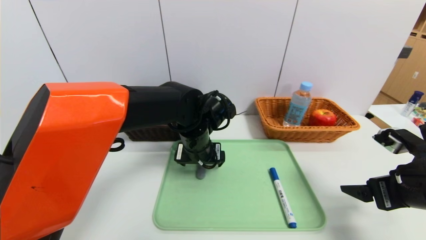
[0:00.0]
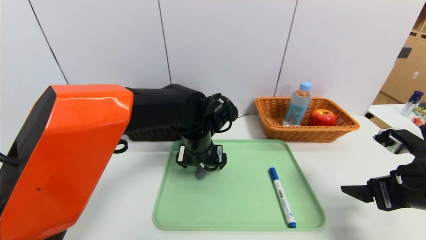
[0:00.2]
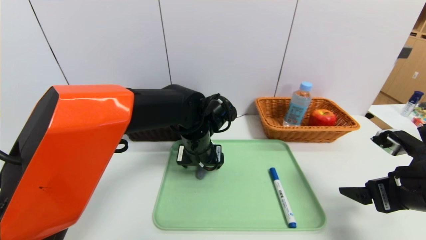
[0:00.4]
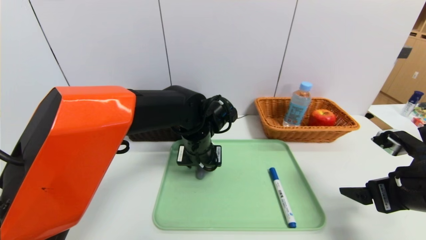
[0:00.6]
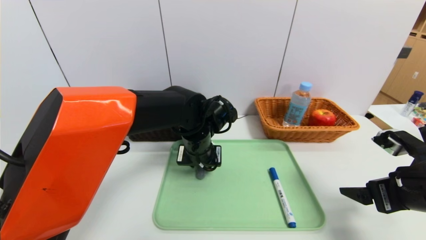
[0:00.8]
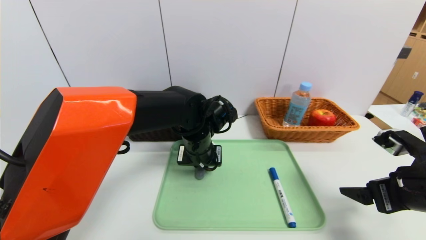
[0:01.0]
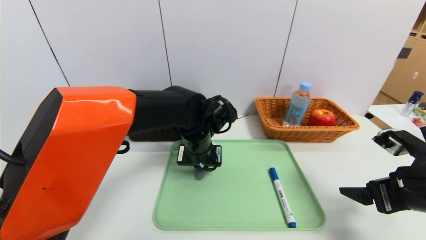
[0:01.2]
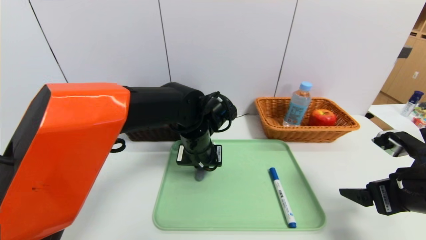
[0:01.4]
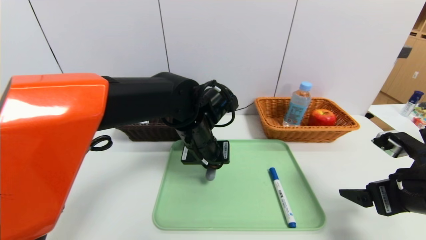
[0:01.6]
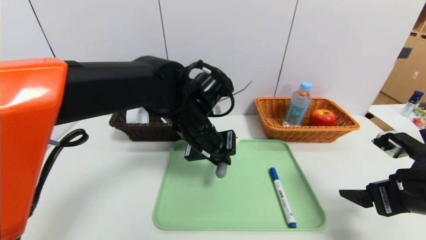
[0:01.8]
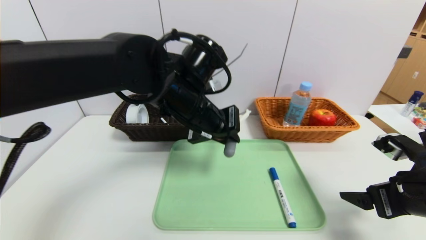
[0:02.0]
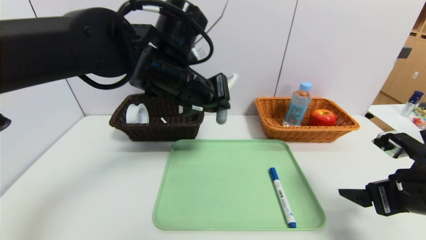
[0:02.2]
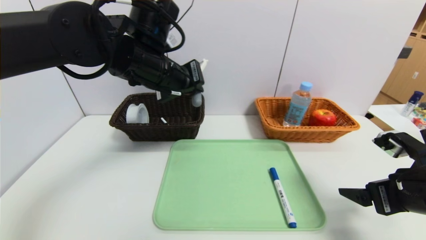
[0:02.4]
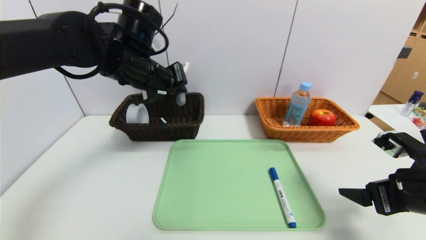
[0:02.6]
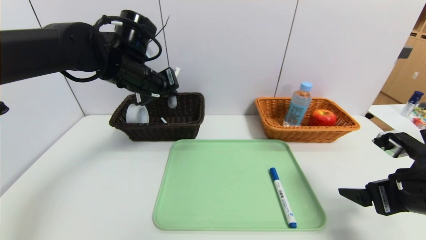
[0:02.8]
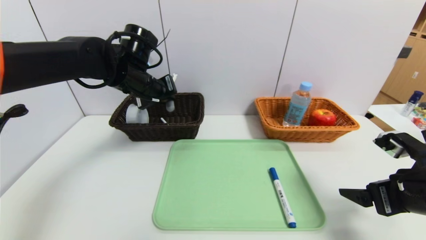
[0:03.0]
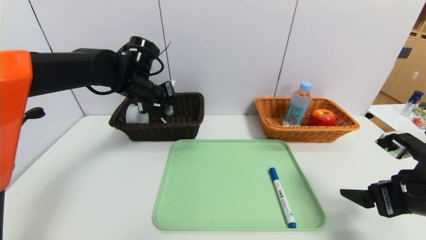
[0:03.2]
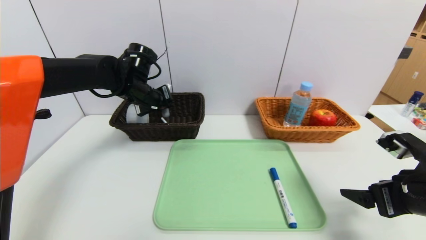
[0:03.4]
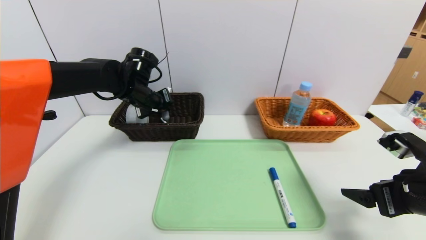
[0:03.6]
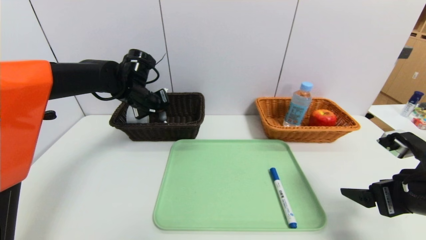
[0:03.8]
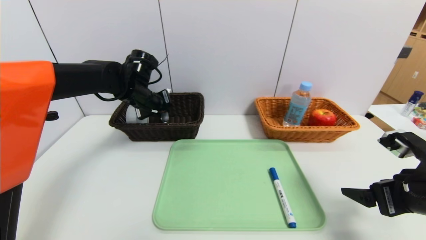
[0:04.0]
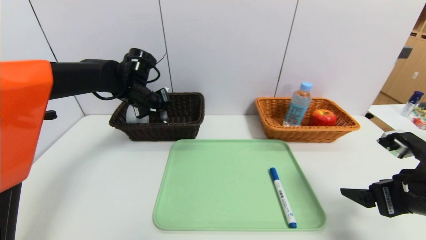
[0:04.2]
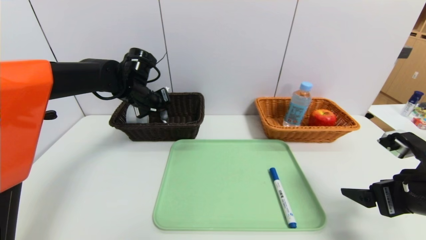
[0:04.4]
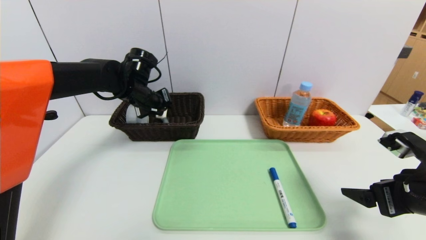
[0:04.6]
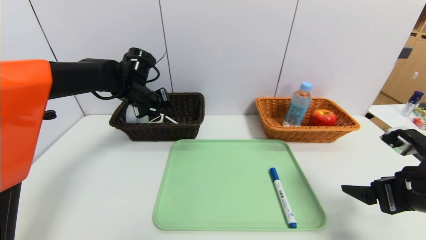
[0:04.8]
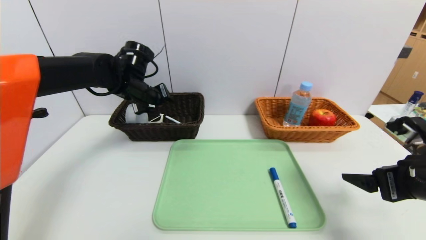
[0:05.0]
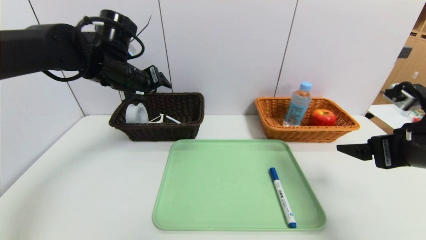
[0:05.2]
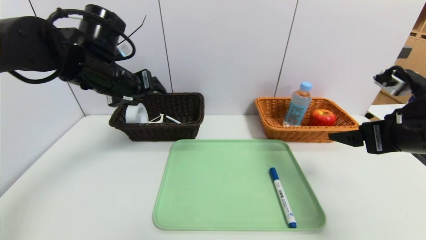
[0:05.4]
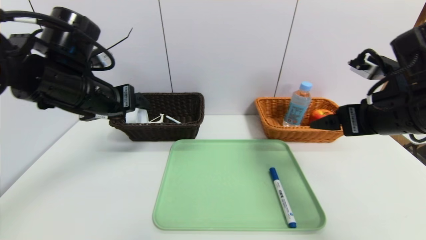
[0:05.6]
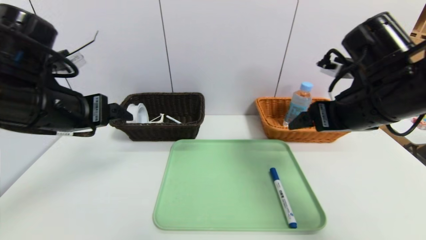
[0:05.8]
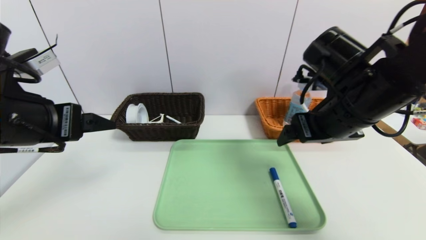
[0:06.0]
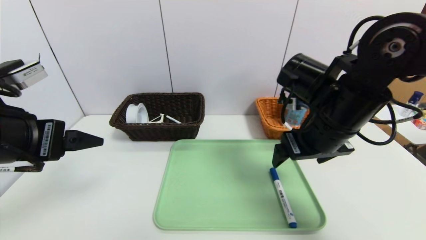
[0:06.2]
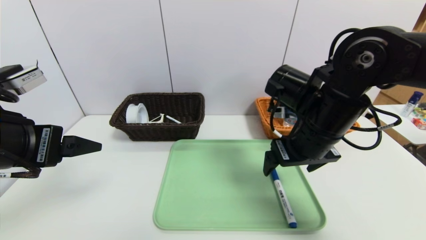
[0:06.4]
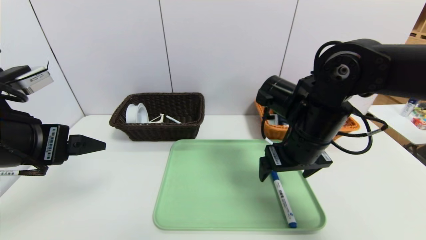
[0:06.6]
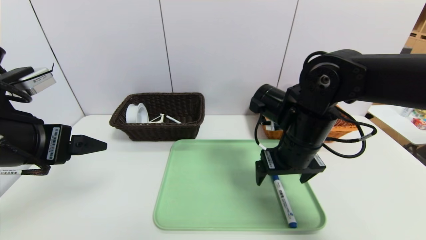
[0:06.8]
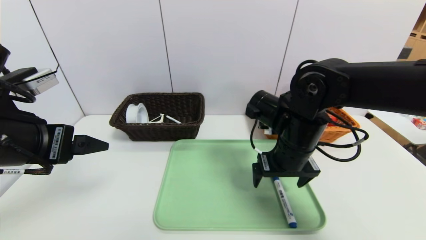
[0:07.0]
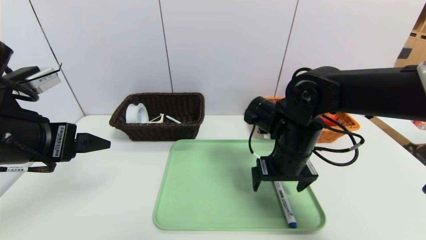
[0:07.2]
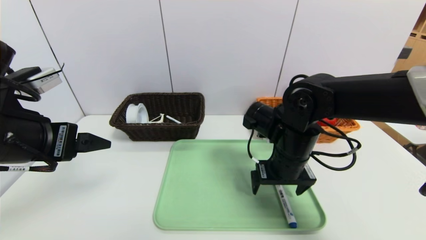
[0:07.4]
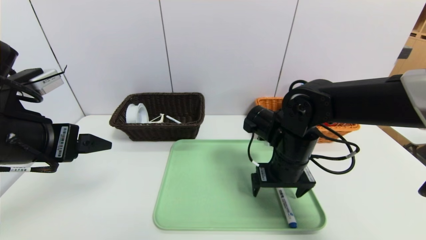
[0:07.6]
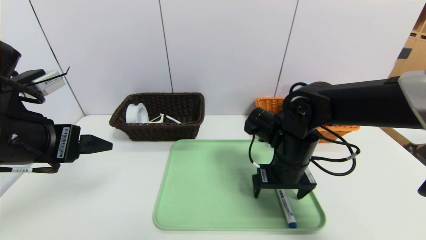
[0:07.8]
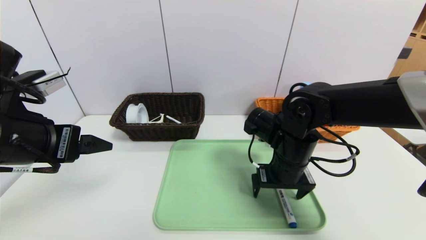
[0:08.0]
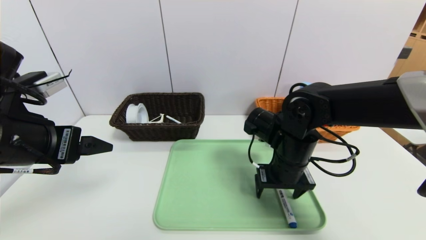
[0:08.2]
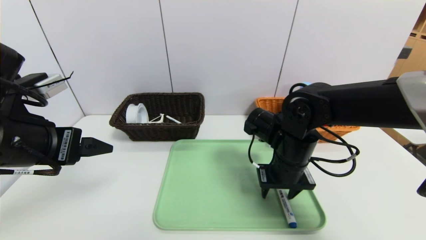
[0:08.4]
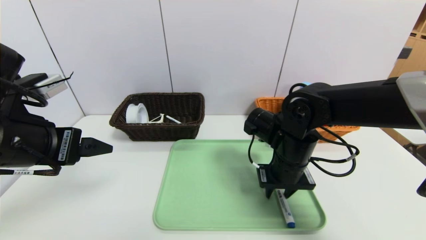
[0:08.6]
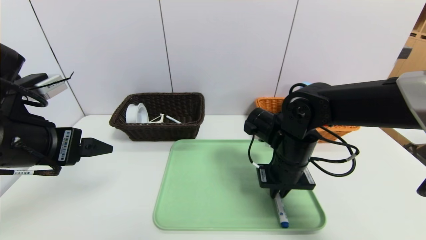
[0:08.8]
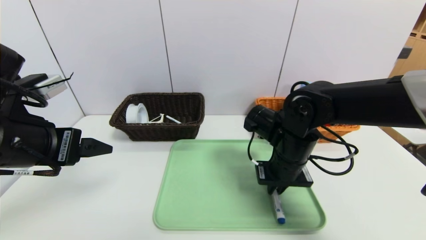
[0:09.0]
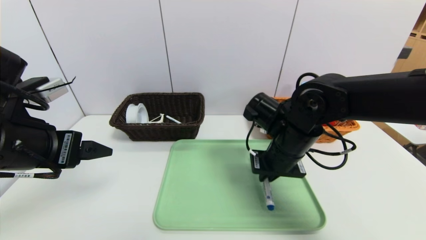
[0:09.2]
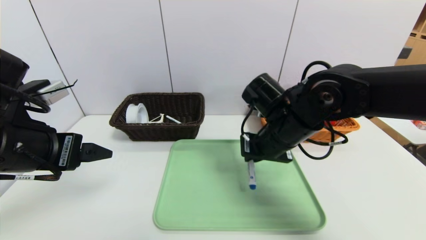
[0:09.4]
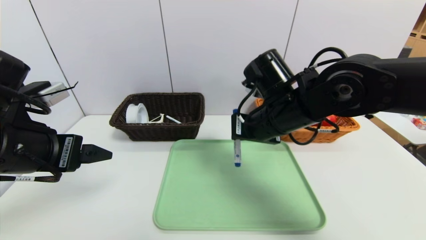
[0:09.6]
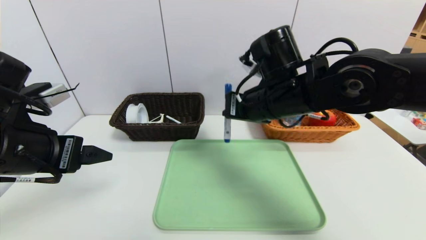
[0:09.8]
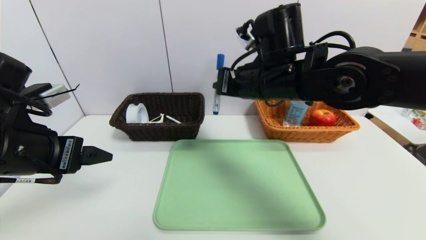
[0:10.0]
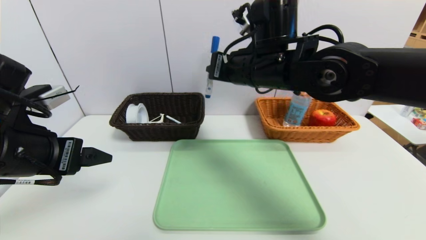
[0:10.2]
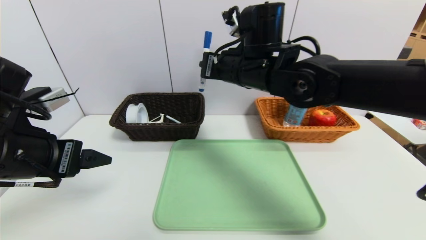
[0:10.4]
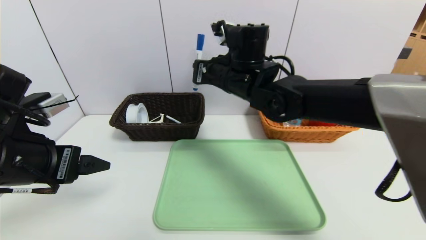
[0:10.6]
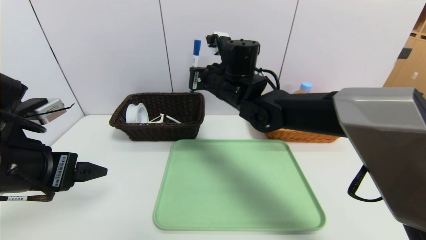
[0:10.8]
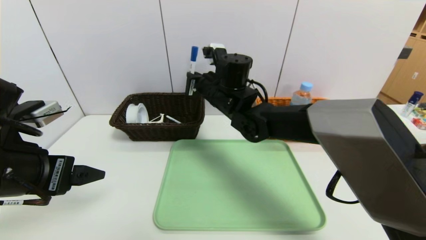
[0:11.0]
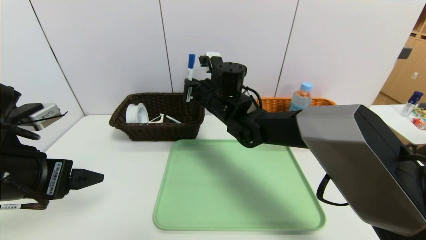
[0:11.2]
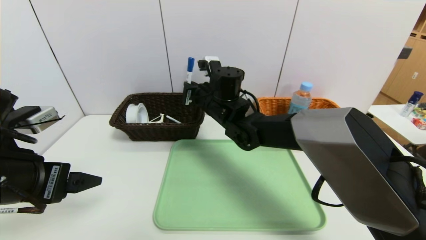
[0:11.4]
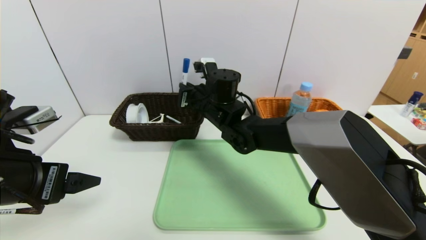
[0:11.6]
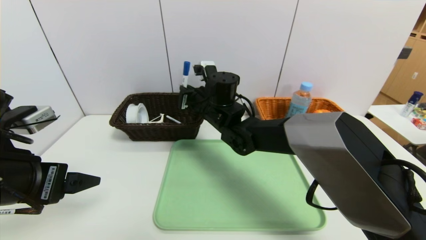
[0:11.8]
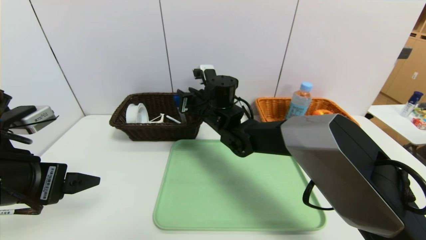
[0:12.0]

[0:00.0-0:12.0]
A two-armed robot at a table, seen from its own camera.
Task of the whole recording: place the food in the right basket with the right gripper, and place the non food items in the left basket with the left gripper.
Step, 0:00.0 to 0:04.8: Grasp the peeler and put it in the left basket.
0:00.0 to 0:01.6: The left gripper closes.
0:01.6 to 0:03.0: The left gripper shifts about 20 cm to the left, forward and upward.
0:03.0 to 0:04.4: The left gripper moves approximately 5 cm.
0:04.4 to 0:06.0: The left gripper travels backward by roughly 25 cm, and opens. The right gripper moves to the left, upward and forward, some 20 cm.
0:06.0 to 0:07.6: The right gripper goes about 10 cm downward.
0:07.6 to 0:09.0: The right gripper closes.
0:09.0 to 0:10.4: The right gripper moves upward, to the left and forward, some 15 cm.
0:10.4 to 0:12.0: The right gripper shifts approximately 15 cm downward and to the left, and opens its fingers.

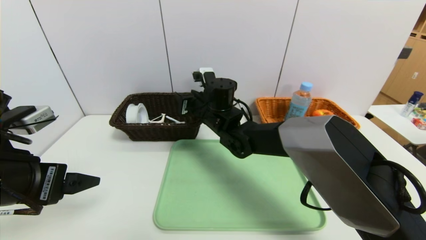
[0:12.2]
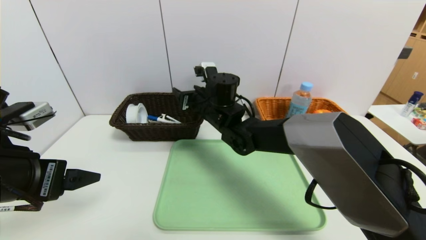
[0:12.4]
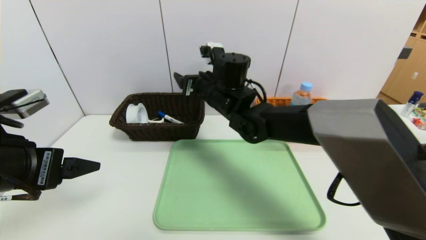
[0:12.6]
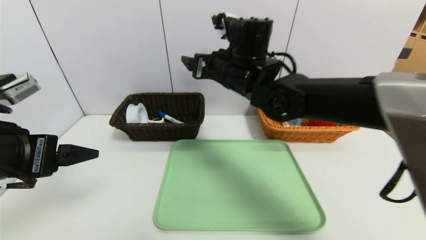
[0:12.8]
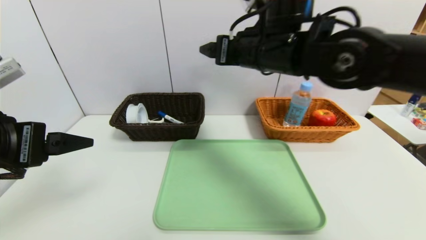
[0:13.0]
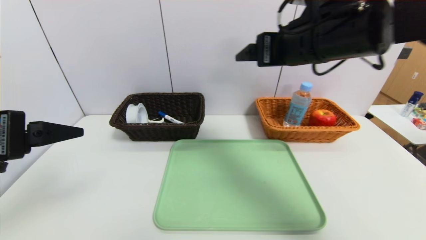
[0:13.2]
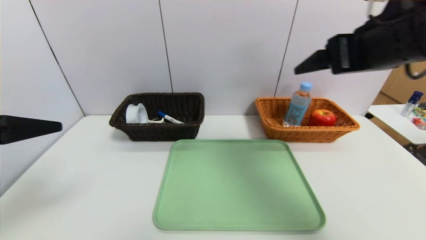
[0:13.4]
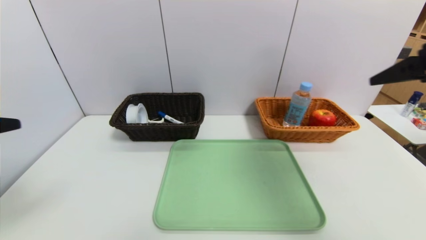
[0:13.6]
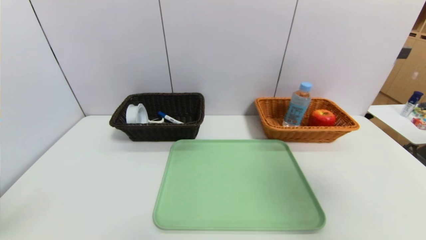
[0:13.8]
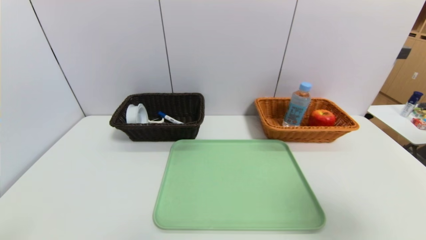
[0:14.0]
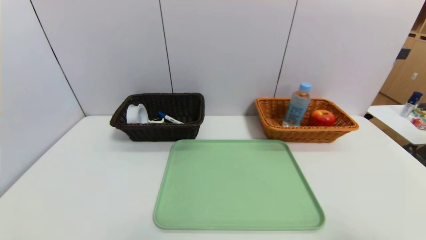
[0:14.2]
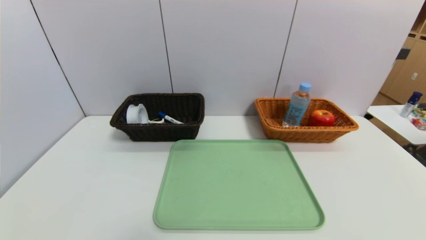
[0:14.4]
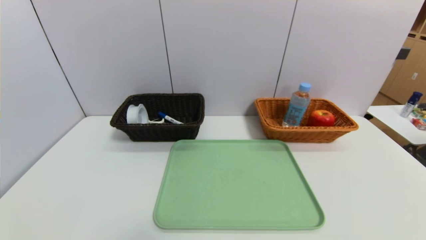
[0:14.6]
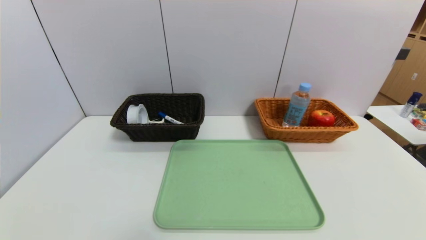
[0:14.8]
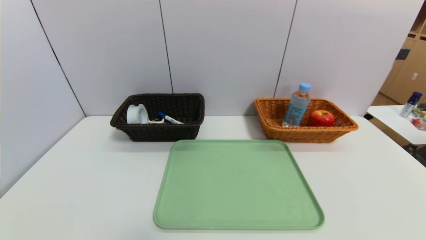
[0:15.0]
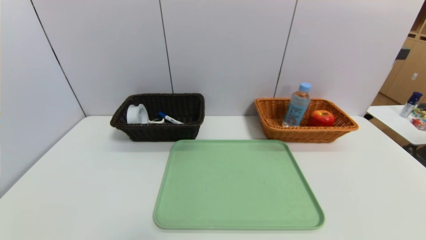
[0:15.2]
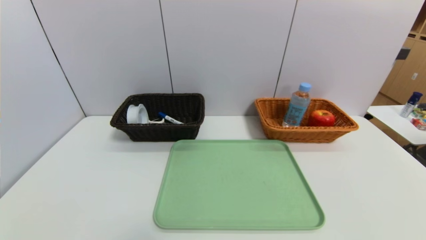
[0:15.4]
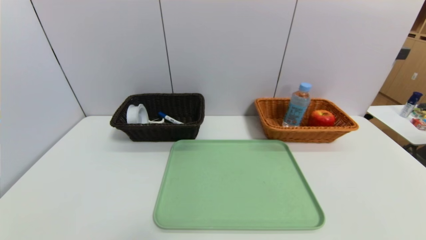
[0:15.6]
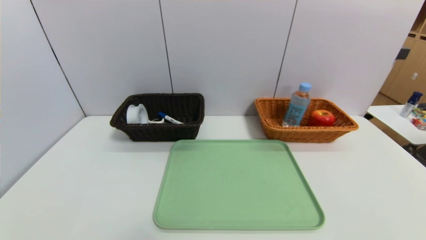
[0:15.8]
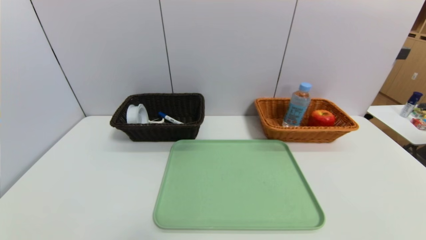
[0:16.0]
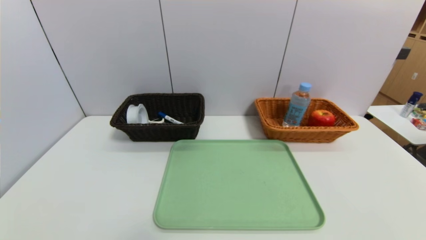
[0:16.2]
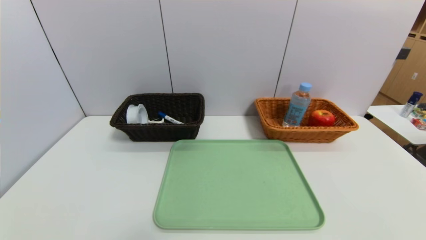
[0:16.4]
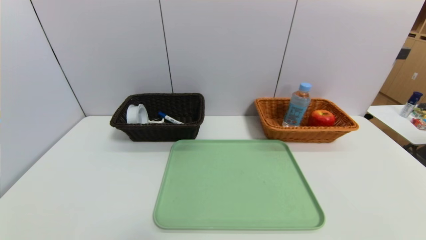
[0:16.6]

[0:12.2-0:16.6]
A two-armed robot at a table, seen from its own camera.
Task of the whole recording: place the food in the right basket with the right gripper, and place the non food items in the left basket with the left gripper.
0:12.2 to 0:13.6: The left gripper is displaced upward and backward by approximately 10 cm. The right gripper goes roughly 40 cm to the right, backward and upward, and opens.
0:13.6 to 0:15.2: The right gripper heads backward and downward, covering approximately 30 cm. The left gripper is displaced downward and backward by roughly 25 cm.
